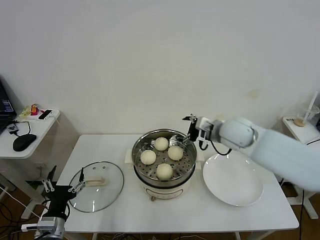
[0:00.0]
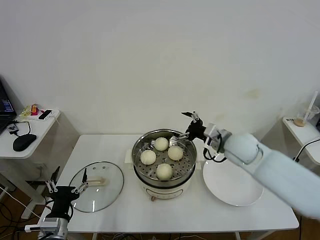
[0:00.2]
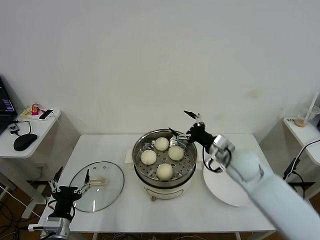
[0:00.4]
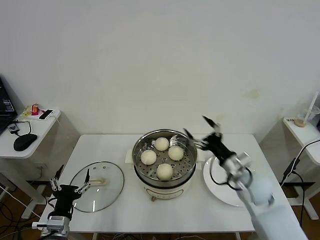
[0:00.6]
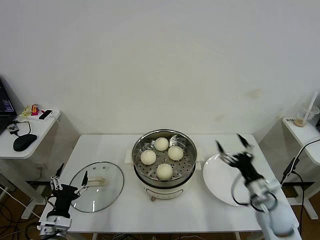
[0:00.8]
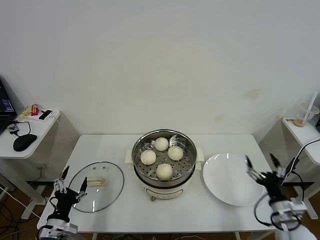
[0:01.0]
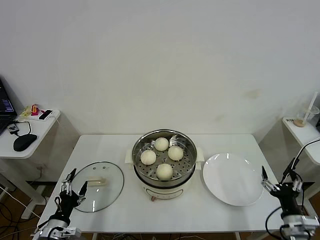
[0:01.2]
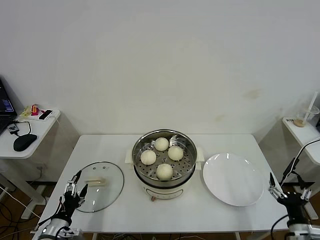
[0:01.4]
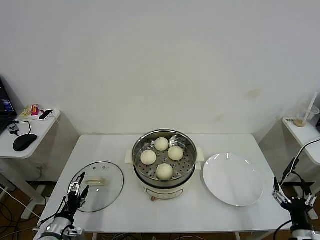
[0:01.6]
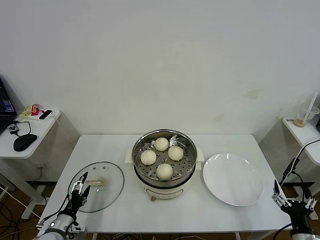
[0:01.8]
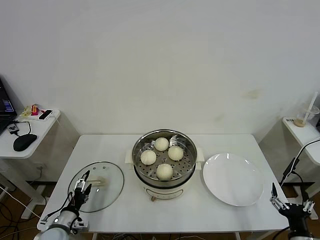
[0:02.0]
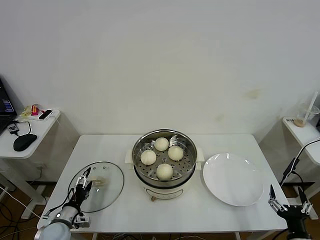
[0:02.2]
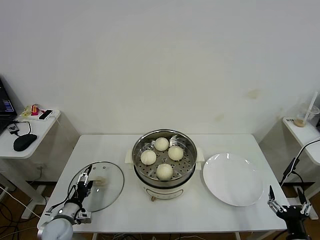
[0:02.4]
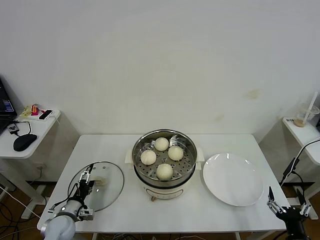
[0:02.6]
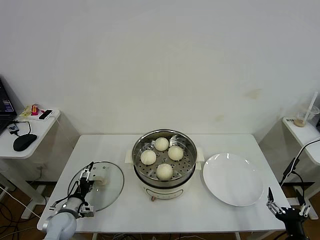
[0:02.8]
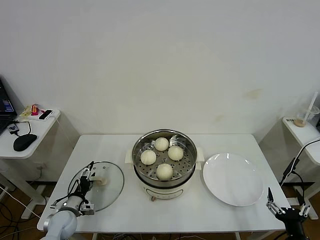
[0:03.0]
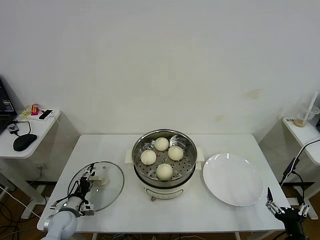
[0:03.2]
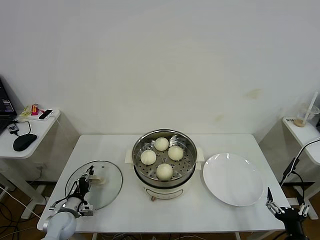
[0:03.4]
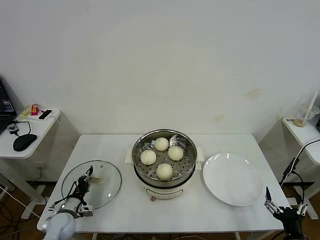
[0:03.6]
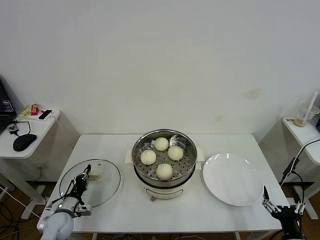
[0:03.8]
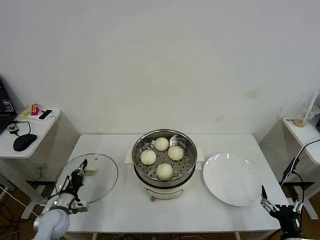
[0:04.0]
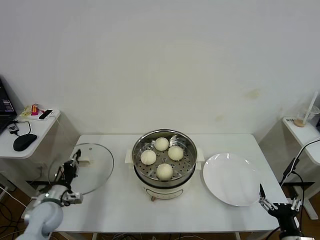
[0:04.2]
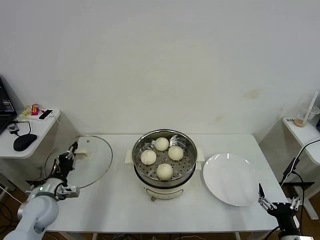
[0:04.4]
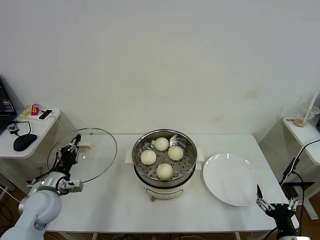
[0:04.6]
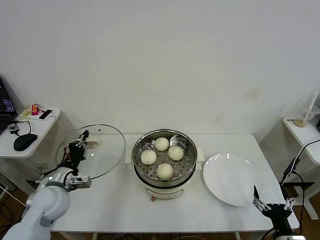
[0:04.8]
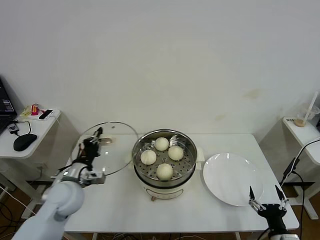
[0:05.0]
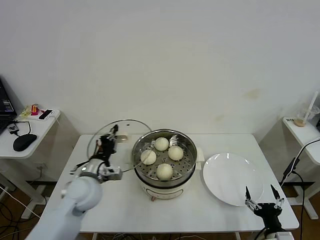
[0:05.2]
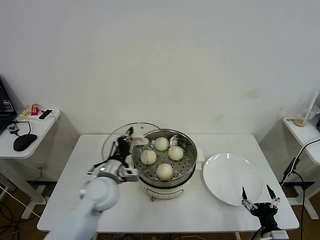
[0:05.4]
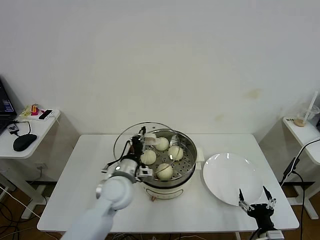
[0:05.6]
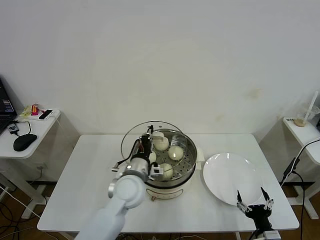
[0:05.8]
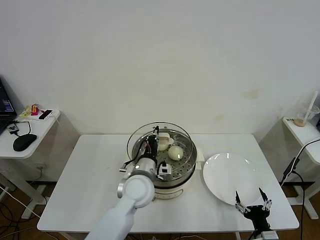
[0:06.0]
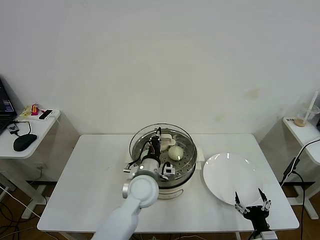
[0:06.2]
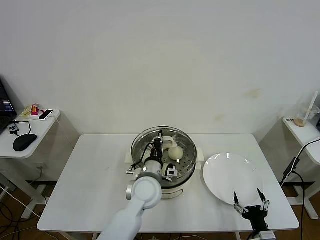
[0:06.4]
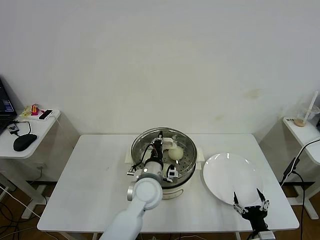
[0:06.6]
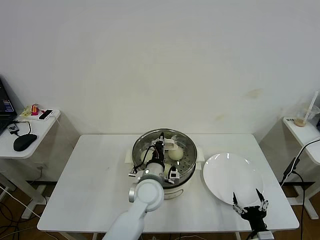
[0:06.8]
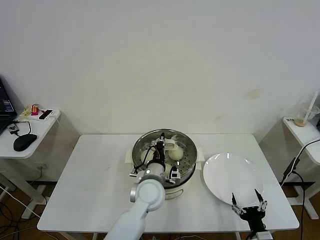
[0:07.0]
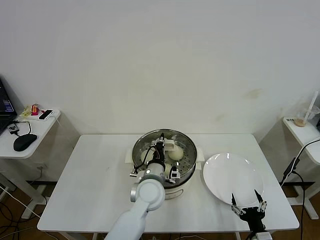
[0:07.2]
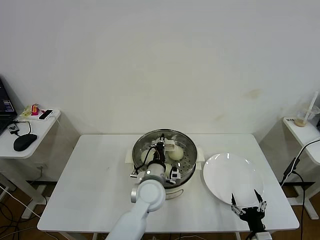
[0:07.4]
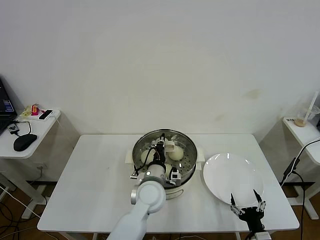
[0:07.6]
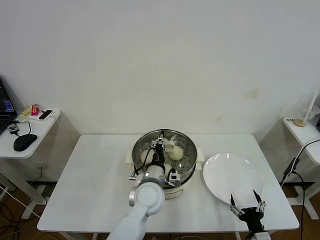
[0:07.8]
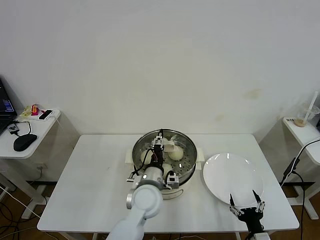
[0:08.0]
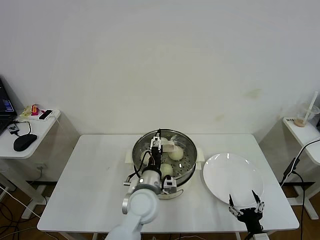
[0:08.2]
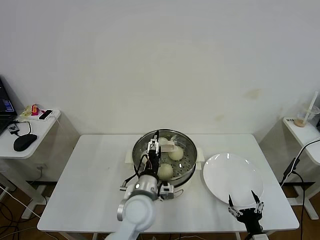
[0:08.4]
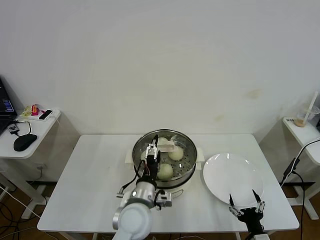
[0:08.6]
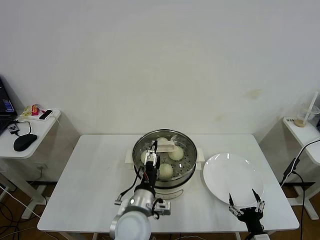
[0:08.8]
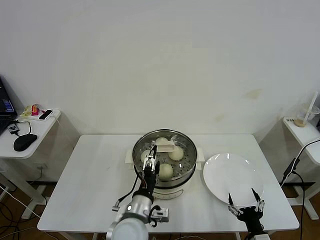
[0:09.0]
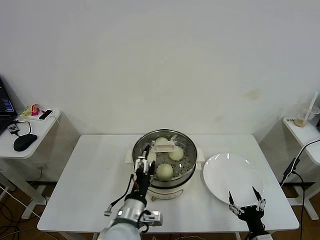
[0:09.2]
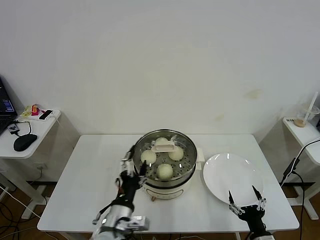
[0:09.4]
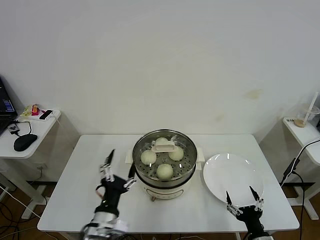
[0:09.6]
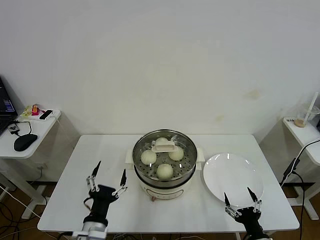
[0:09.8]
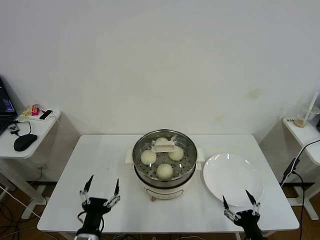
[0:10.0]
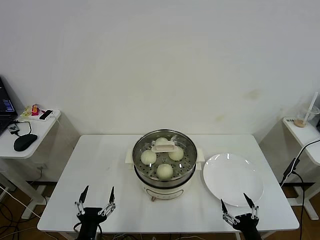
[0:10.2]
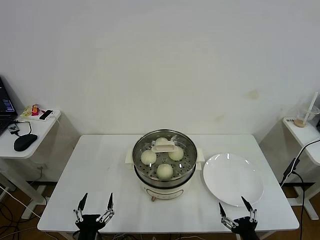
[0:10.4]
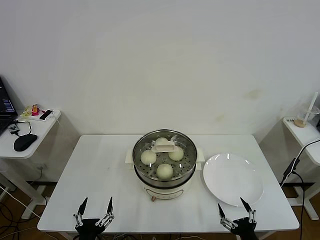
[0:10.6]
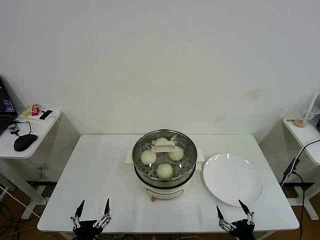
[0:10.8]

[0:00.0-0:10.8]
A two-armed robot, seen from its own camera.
Task of the whole recording: take steamed baozi put them in steamer then cover it.
Step, 0:00.0 to 0:03.8: Grasp the pot lid with left gripper.
Step, 0:04.0 to 0:08.6: Place the pot lid on the steamer with left gripper.
0:00.0 to 0:01.6: The left gripper goes some 10 cm downward and to the left. Meanwhile the right gripper heads backward, downward and to the right, covering approximately 40 cm.
0:01.6 to 0:03.0: The left gripper heads forward, covering approximately 10 cm.
0:03.0 to 0:04.6: The left gripper travels upward by about 15 cm, and closes.
0:04.6 to 0:06.2: The left gripper moves to the right, roughly 30 cm; the right gripper shifts by about 5 cm.
0:06.2 to 0:07.8: The grippers make only small movements.
0:07.8 to 0:09.2: The left gripper goes about 15 cm backward and to the left, and opens.
0:09.2 to 0:10.8: The left gripper goes about 20 cm to the left, backward and downward.
